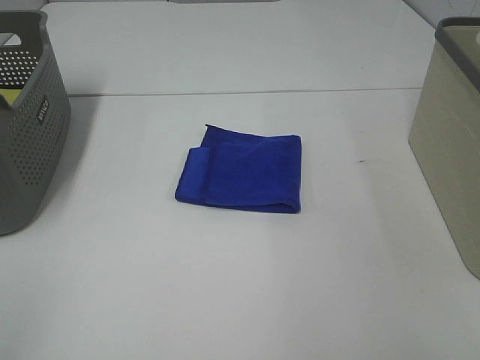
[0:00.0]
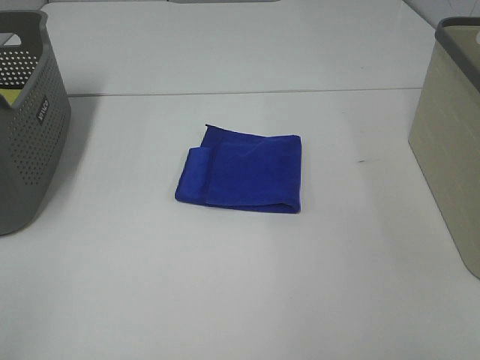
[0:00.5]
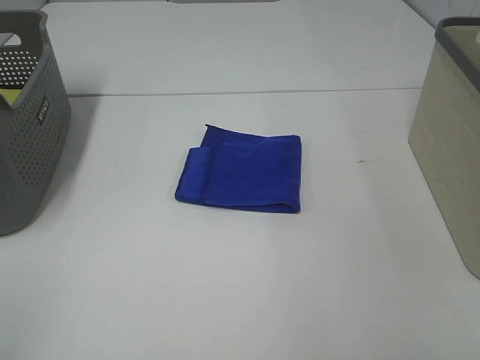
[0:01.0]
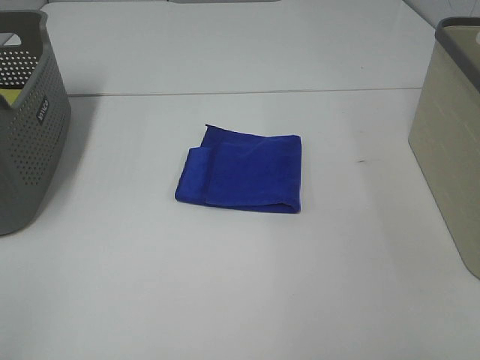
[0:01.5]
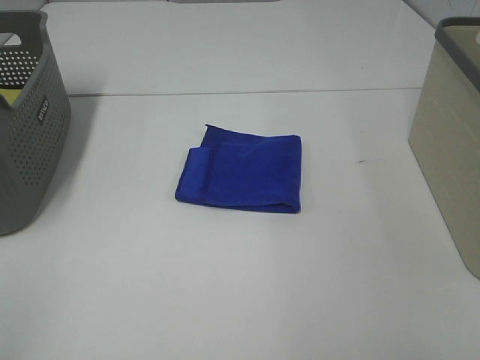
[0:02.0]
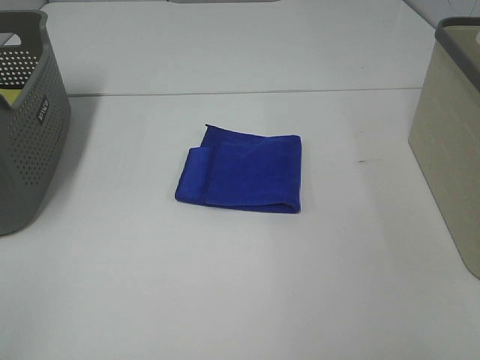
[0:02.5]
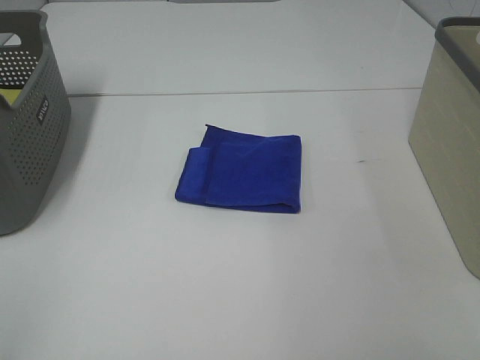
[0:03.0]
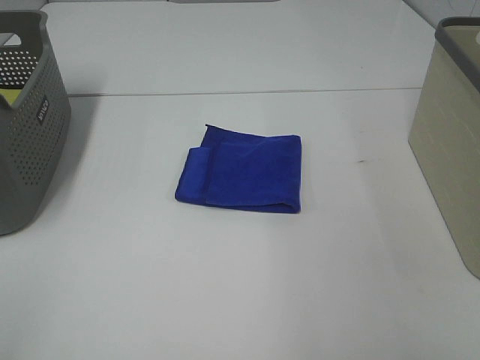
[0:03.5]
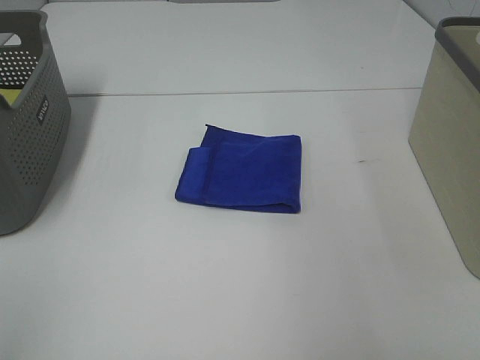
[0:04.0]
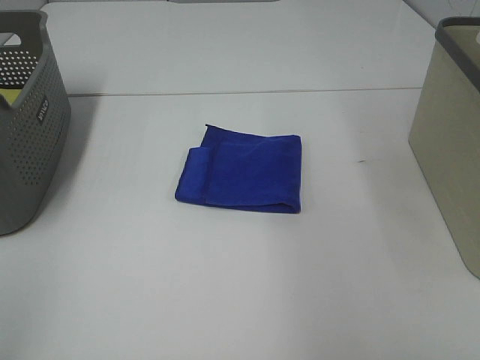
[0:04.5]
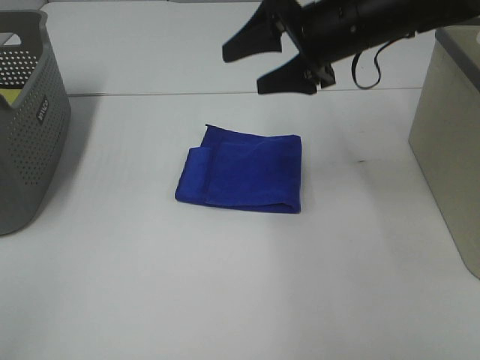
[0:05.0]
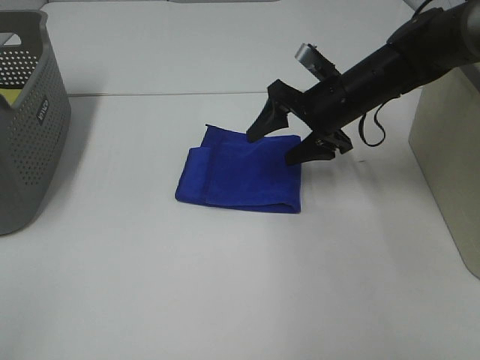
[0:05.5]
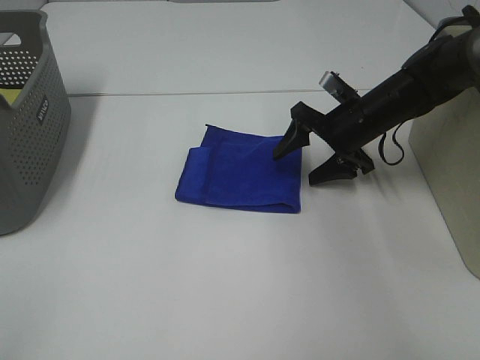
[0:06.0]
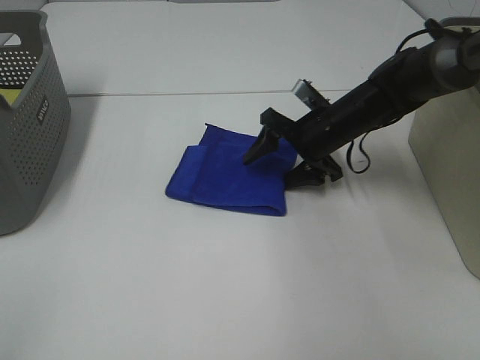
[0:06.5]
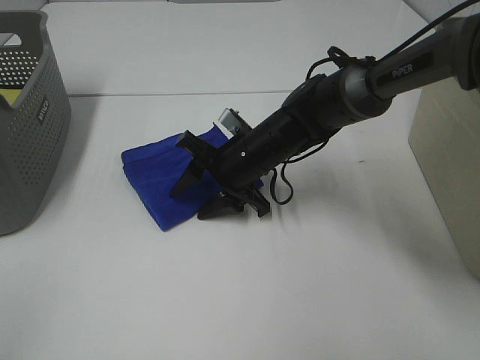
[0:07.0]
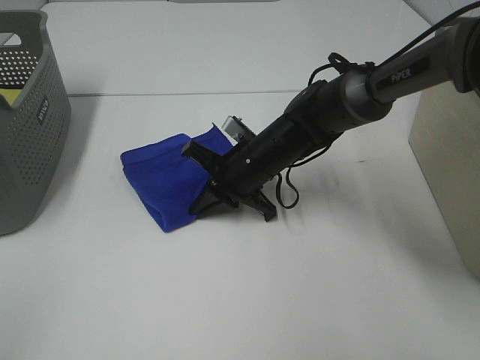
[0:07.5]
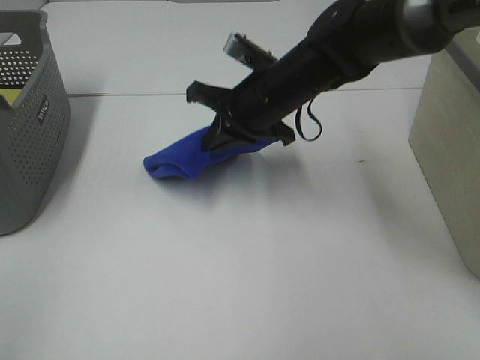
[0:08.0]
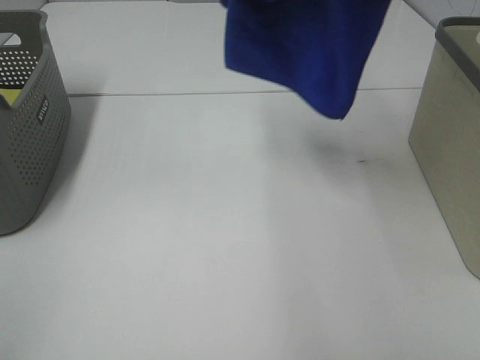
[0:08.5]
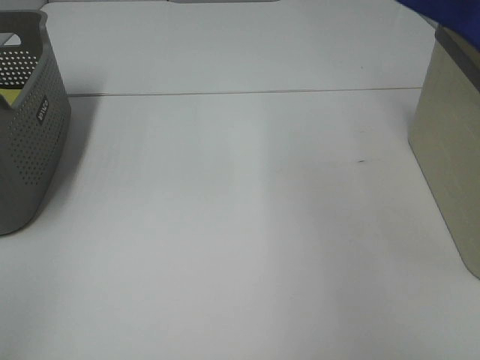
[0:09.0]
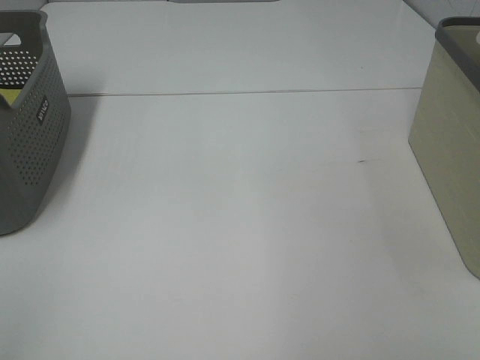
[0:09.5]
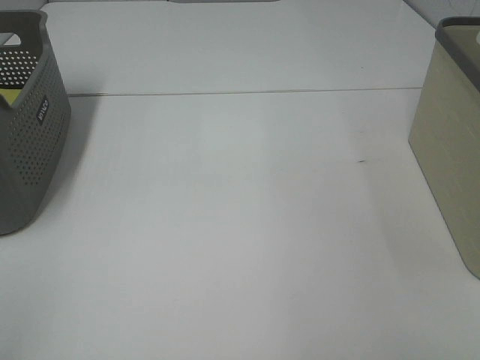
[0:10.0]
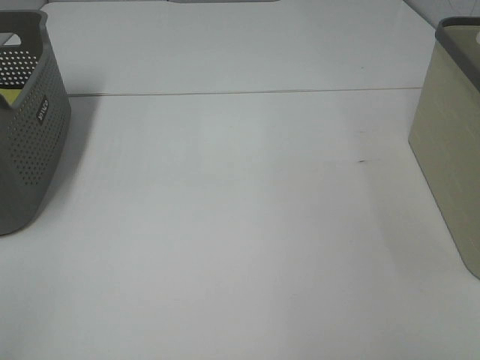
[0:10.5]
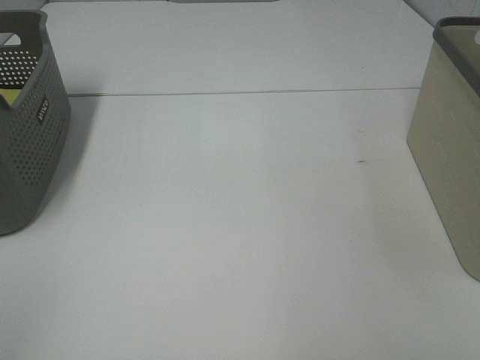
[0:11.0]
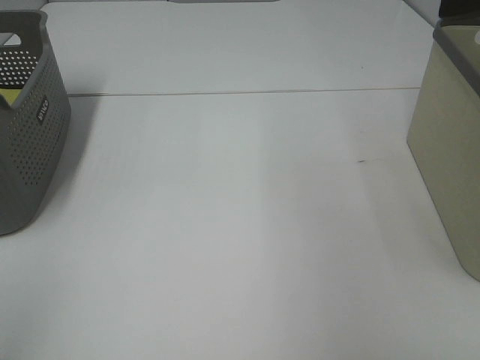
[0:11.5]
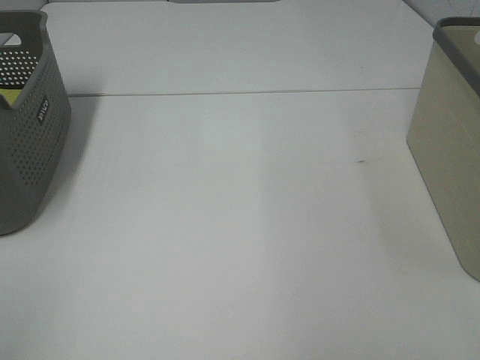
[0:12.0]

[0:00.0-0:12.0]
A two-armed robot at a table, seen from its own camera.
Step, 0:00.0 to 0:07.5: Right hand: grab the folded blue towel.
Step, 0:08.0 to 0:11.0: Right hand: place the blue towel in right basket.
0:00.0 to 0:02.0: Both grippers stay put.
0:04.0 to 0:06.0: The right gripper shifts roughly 40 cm downward and forward.
0:06.0 to 0:08.0: The right gripper goes roughly 15 cm to the left and upward, and closes its fingers.
0:08.0 to 0:10.0: The right gripper moves to the right, roughly 35 cm.

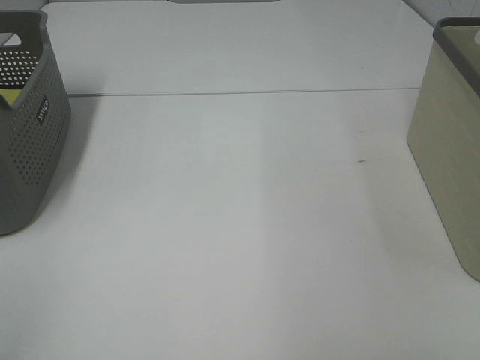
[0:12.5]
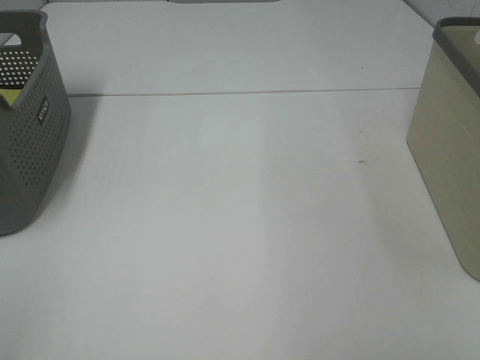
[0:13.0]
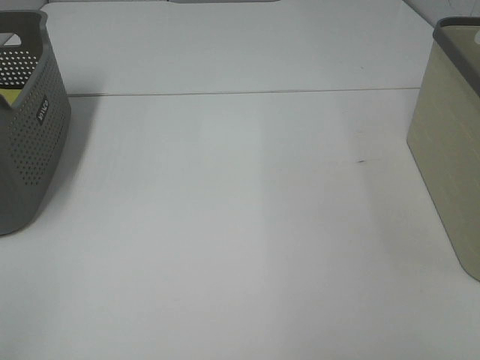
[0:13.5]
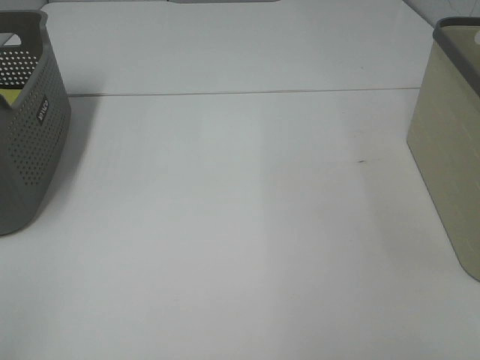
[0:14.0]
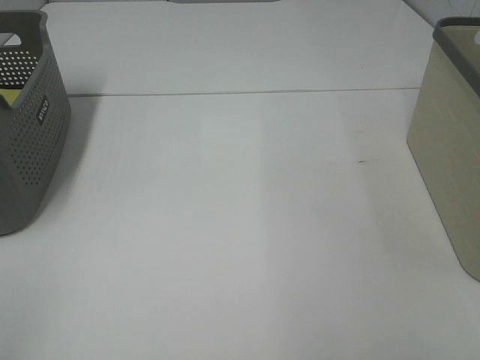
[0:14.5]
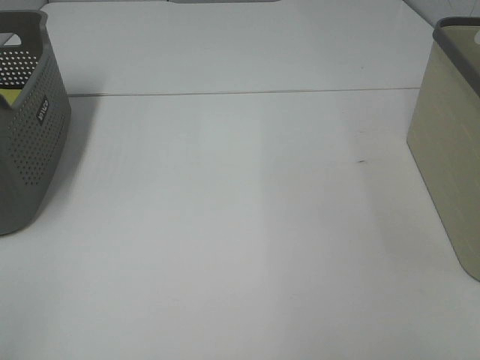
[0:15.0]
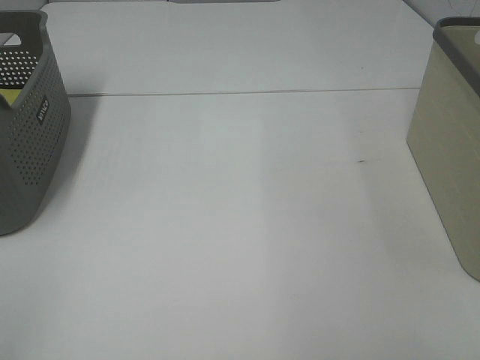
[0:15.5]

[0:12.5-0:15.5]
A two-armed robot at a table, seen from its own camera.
0:14.0 to 0:15.5: Both grippers stay put.

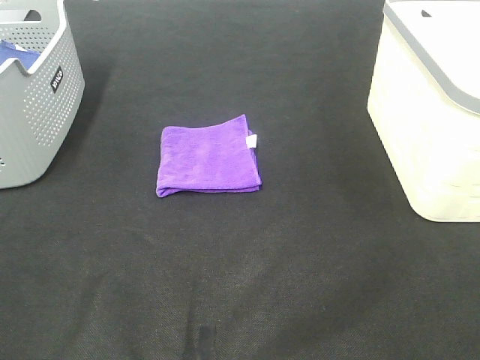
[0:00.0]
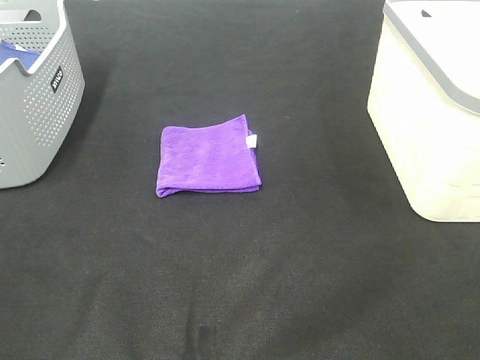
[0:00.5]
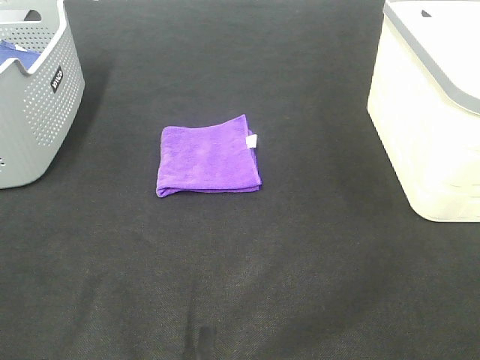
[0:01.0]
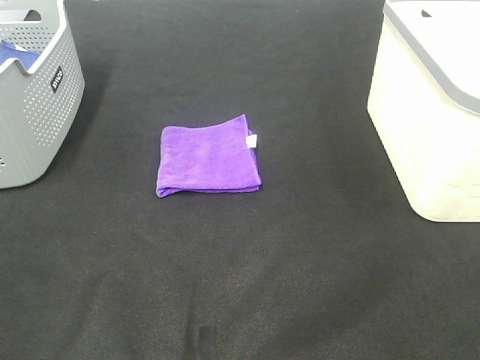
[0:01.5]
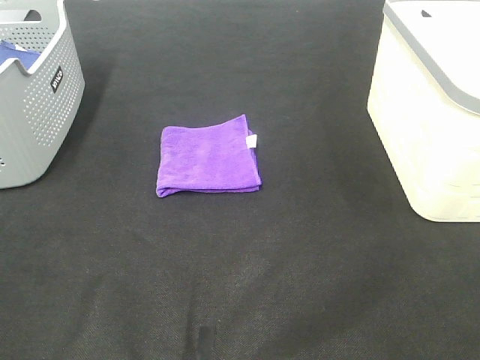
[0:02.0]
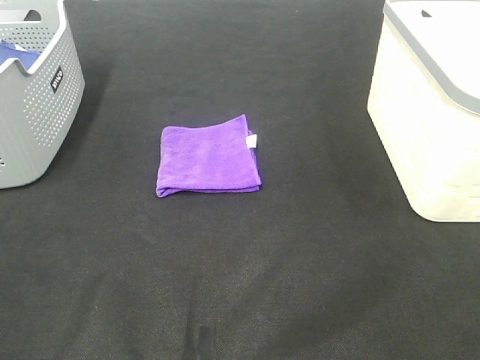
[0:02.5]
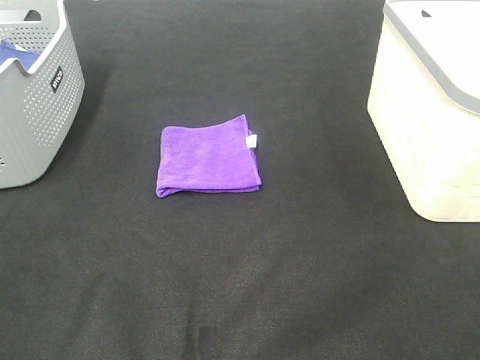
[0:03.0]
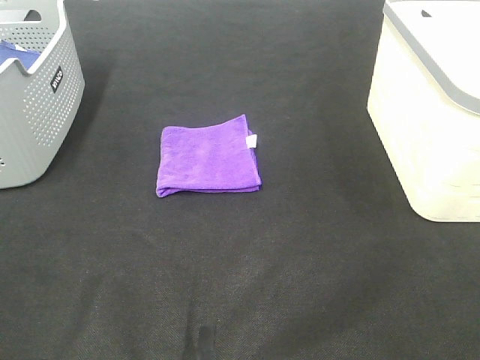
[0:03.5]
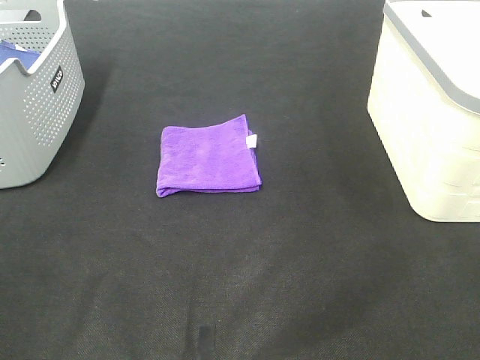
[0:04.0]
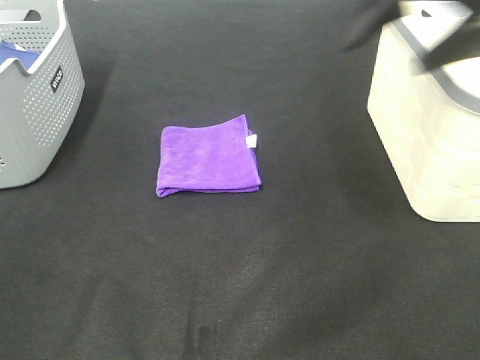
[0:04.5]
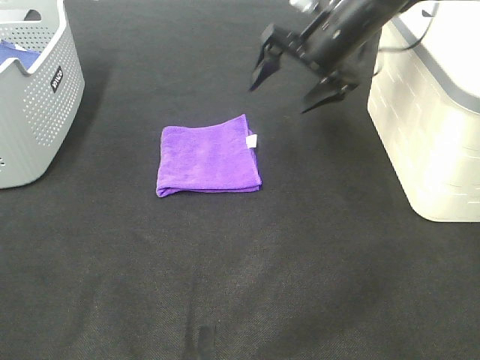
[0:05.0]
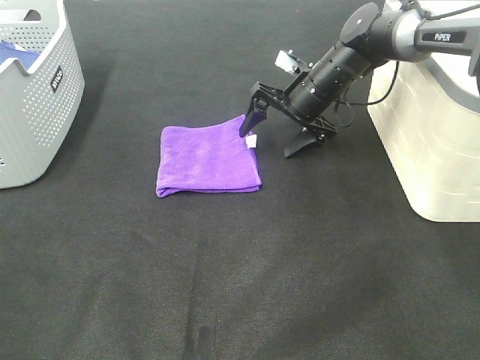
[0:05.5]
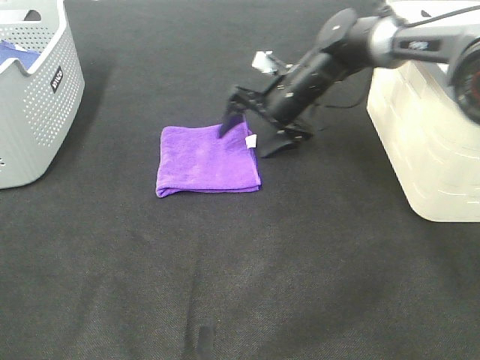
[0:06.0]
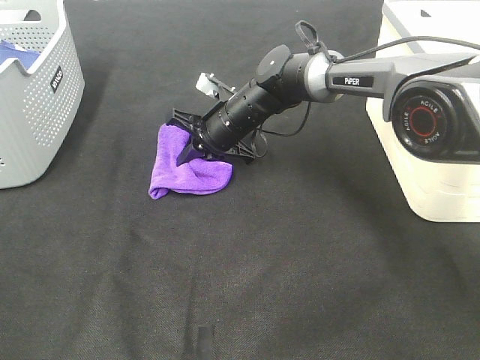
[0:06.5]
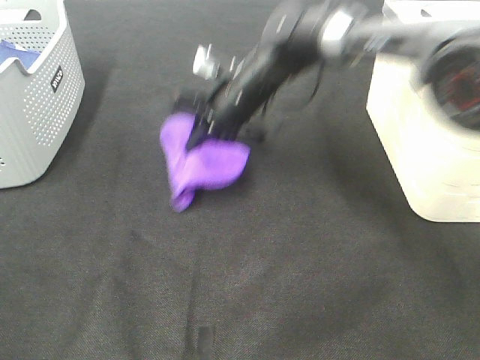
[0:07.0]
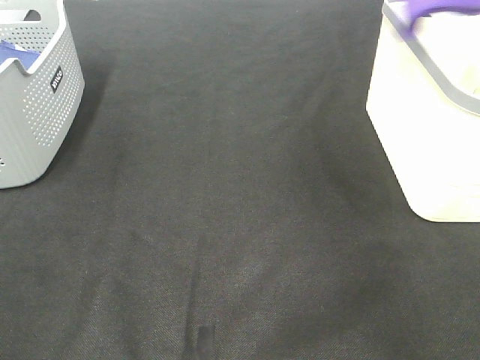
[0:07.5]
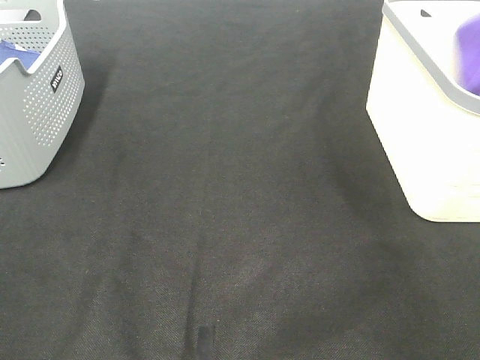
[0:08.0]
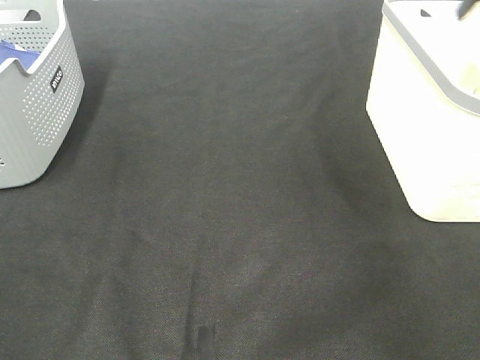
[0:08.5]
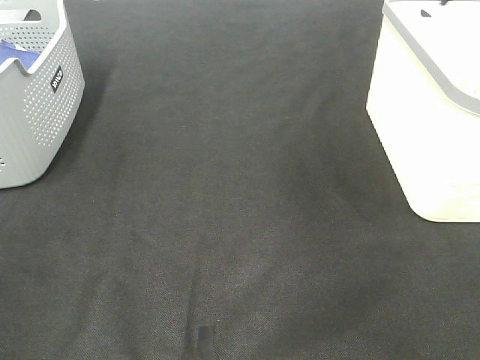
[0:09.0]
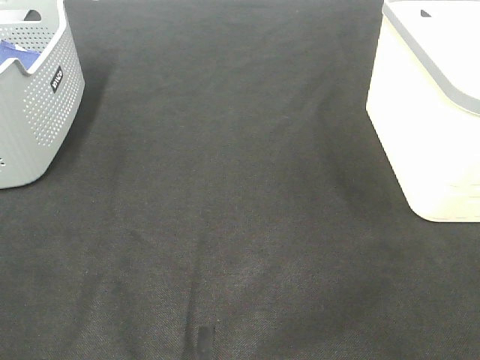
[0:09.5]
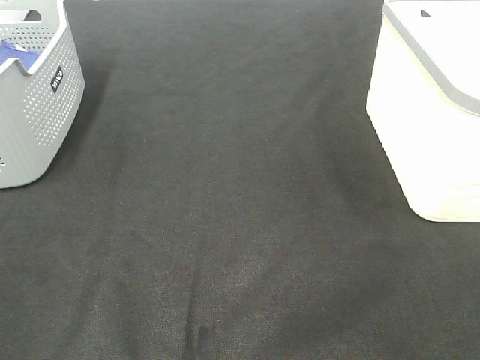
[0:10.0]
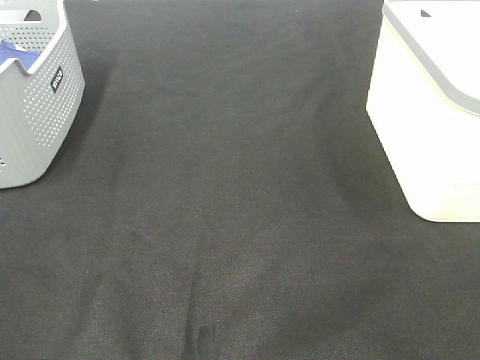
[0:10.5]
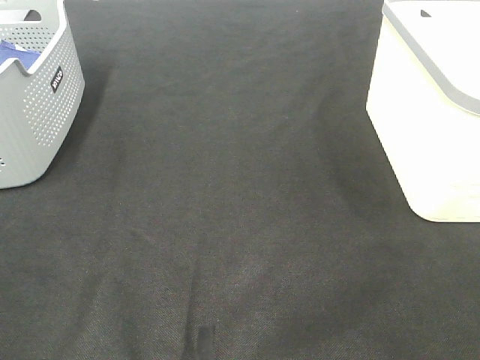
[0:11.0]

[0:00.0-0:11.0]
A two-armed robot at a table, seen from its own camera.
Step, 0:00.0 to 0:06.5: Right hand: grab the folded purple towel.
Step, 0:07.0 to 0:08.0: Right hand: place the purple towel in right basket.
0:00.0 to 0:03.5: Neither gripper changes place.
0:03.5 to 0:05.5: The right gripper shifts roughly 50 cm forward.
0:05.5 to 0:07.5: The right gripper is displaced upward and to the right by approximately 35 cm, and closes up.
0:07.5 to 0:09.0: The right gripper travels backward by about 5 cm, and opens.
